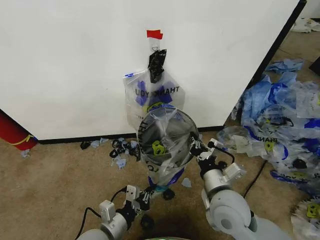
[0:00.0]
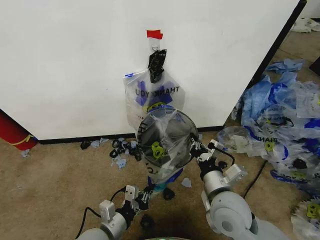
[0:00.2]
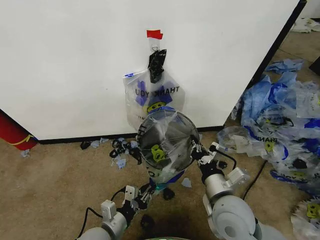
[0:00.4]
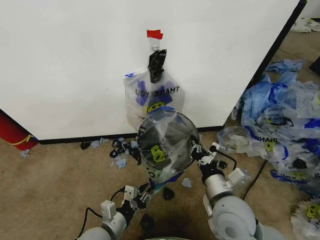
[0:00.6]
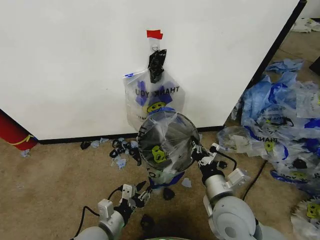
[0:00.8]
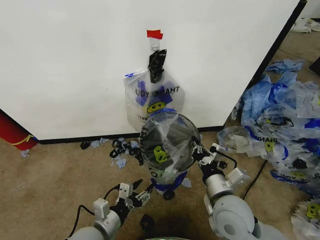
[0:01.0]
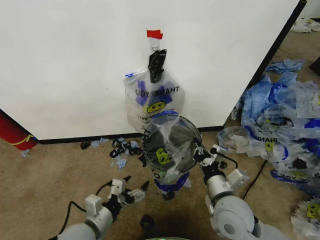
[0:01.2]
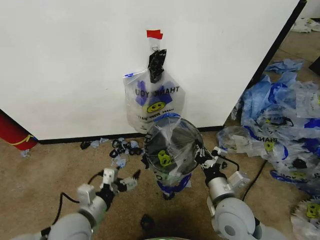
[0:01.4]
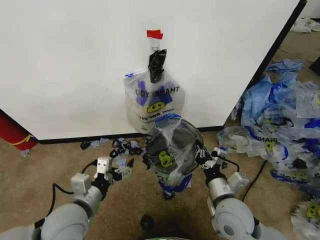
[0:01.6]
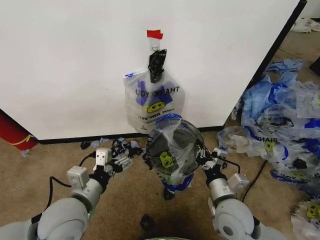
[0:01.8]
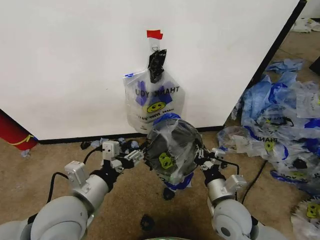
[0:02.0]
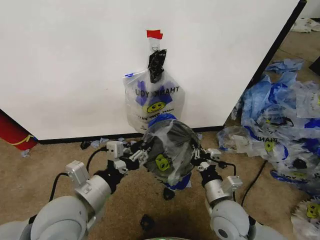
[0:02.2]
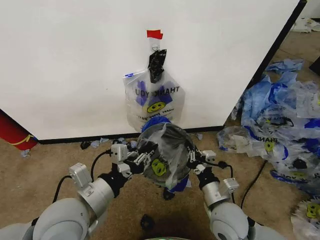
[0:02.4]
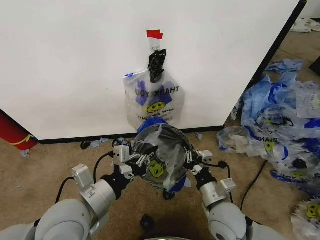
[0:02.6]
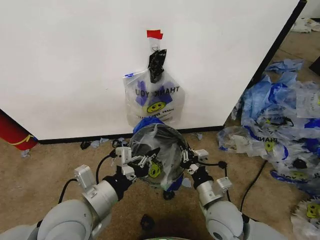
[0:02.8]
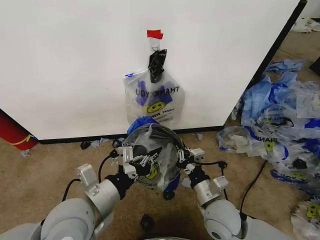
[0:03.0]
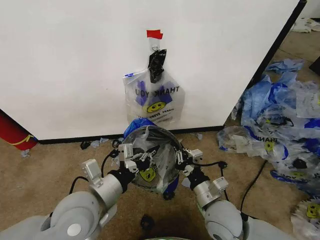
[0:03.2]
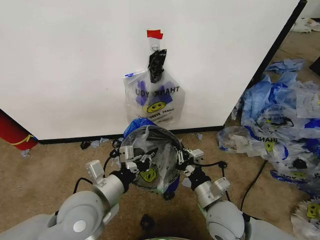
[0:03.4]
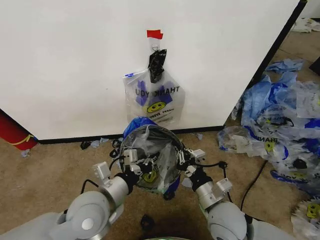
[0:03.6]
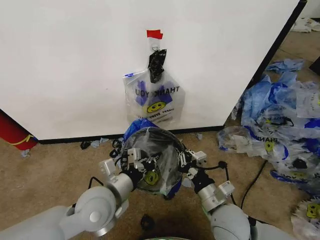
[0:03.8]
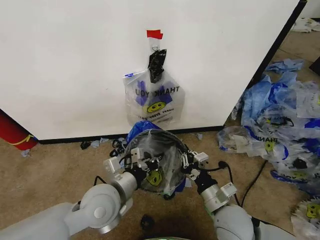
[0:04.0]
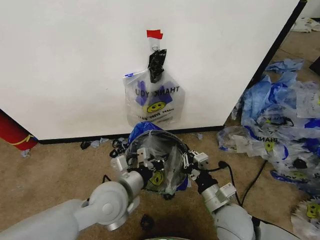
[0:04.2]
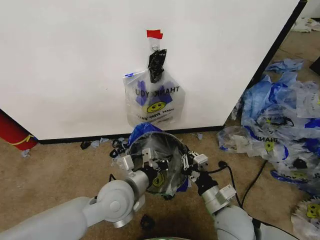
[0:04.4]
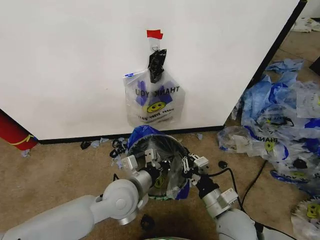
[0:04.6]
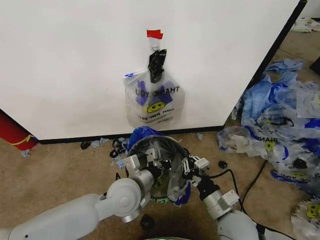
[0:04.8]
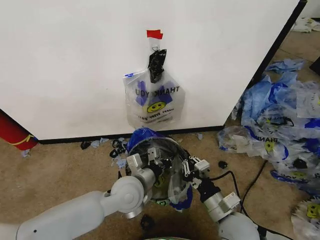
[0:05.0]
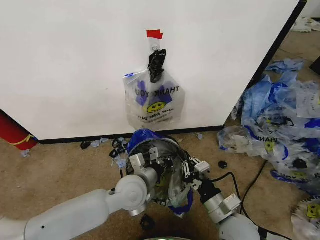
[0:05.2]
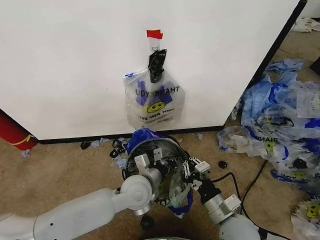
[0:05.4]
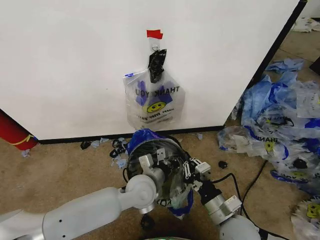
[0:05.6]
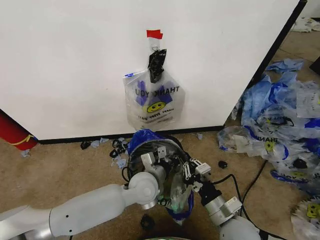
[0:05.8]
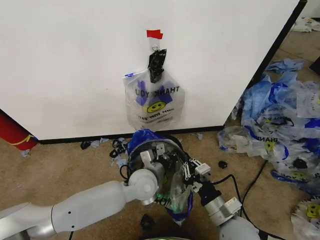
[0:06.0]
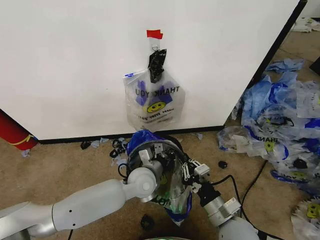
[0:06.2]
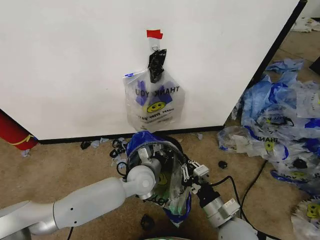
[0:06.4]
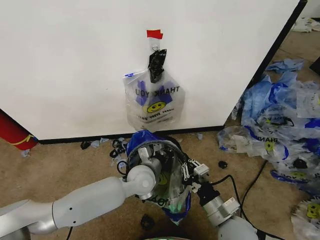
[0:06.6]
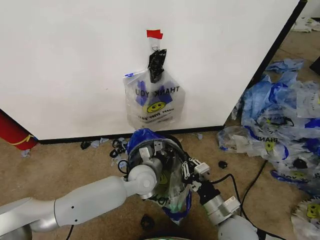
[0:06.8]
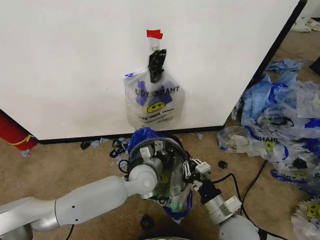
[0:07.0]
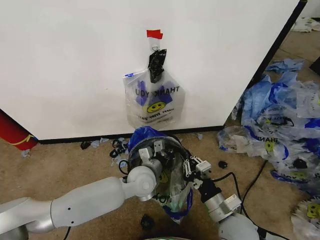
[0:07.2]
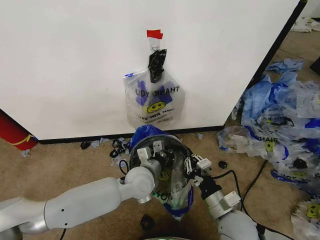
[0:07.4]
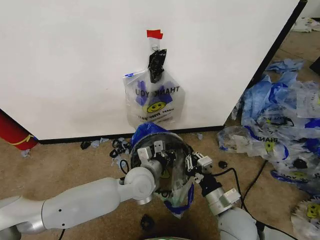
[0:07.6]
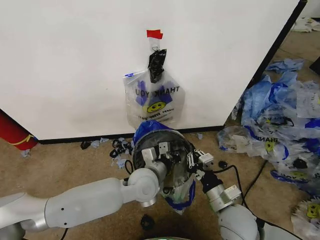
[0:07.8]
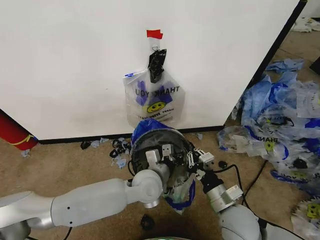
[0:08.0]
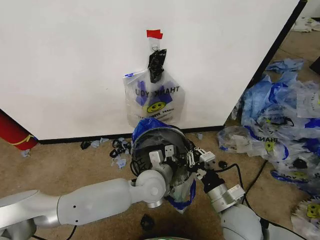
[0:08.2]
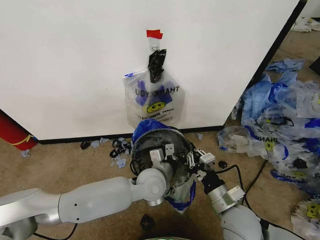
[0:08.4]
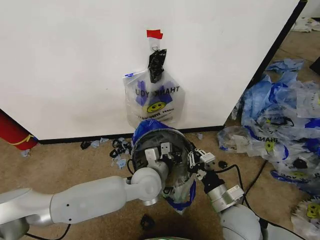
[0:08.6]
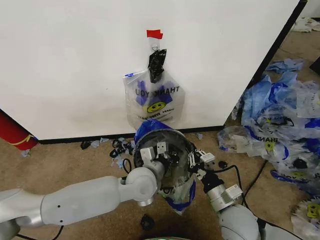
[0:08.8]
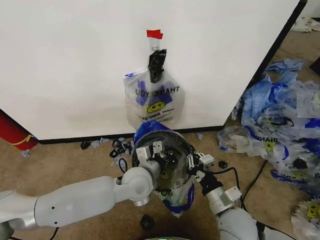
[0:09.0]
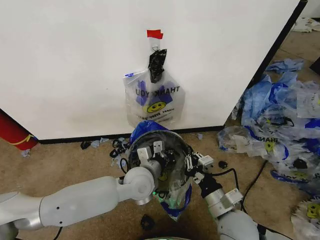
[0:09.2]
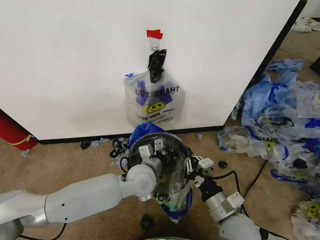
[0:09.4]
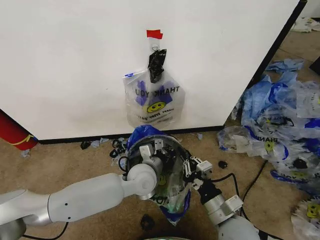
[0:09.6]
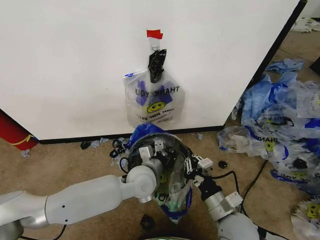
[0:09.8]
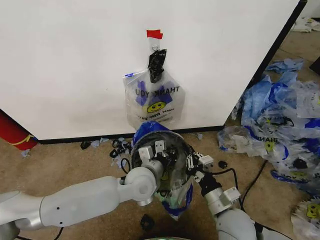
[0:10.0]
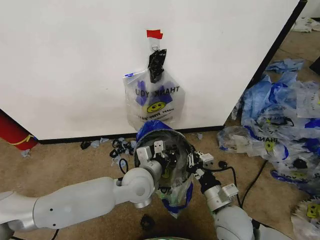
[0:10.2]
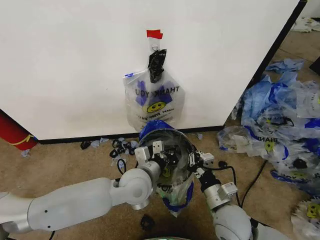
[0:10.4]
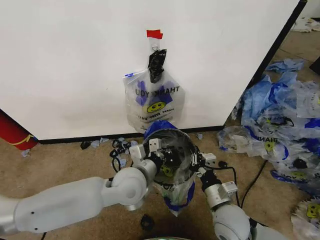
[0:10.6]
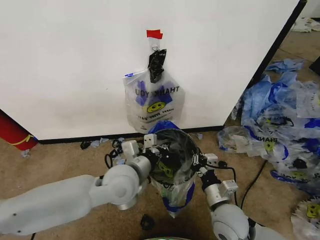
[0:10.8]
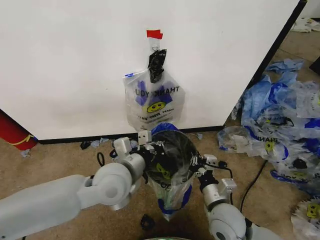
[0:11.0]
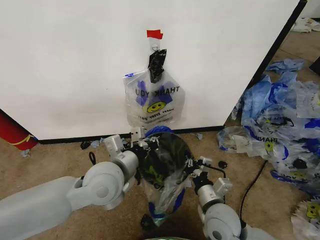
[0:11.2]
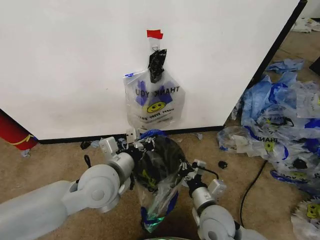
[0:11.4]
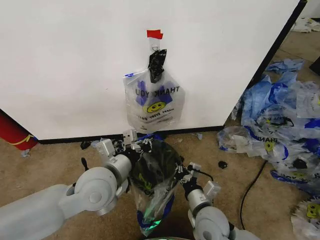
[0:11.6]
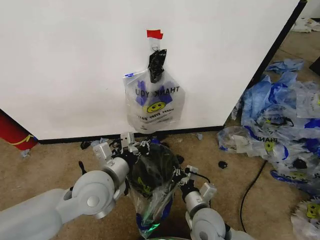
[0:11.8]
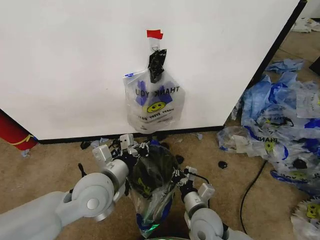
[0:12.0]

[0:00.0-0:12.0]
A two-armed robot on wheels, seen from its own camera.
Task of the whole recording: Pick up the garbage bag from the wall and place it over the trash bin.
0:00.0 to 0:01.6: The left gripper travels upward by some 10 cm, and opens.
0:01.6 to 0:03.0: The left gripper shifts roughly 5 cm upward, and closes up.
0:03.0 to 0:04.4: The left gripper moves to the right, forward and downward, roughly 10 cm.
0:04.4 to 0:06.0: The left gripper moves forward, downward and to the right, some 10 cm.
0:06.0 to 0:09.0: The grippers make only small movements.
0:09.0 to 0:10.4: There are only small adjustments of the grippers.
0:10.4 to 0:12.0: The left gripper goes roughly 10 cm to the left and upward. The right gripper shifts some 5 cm to the left.

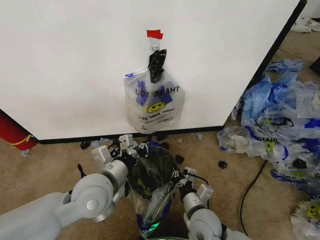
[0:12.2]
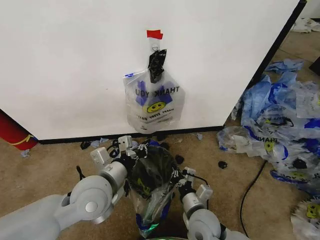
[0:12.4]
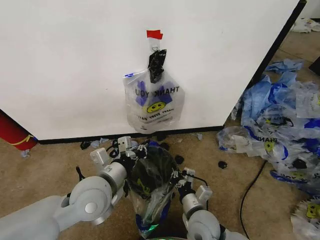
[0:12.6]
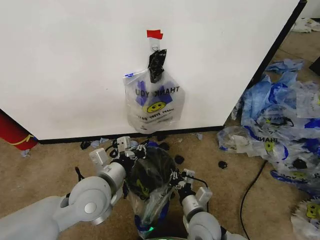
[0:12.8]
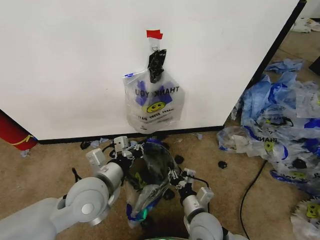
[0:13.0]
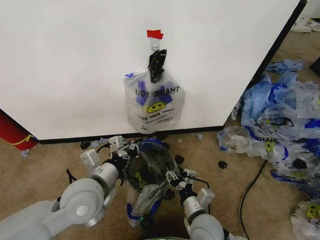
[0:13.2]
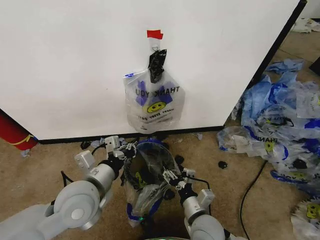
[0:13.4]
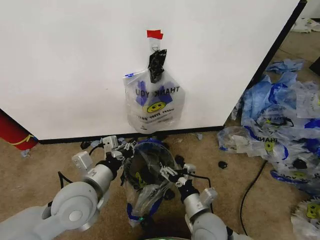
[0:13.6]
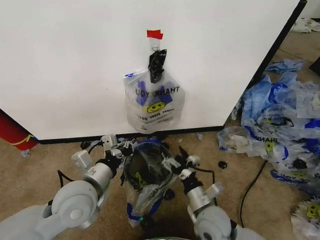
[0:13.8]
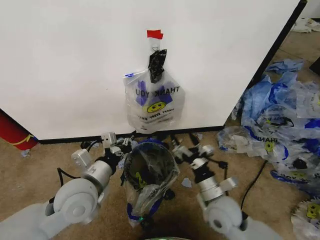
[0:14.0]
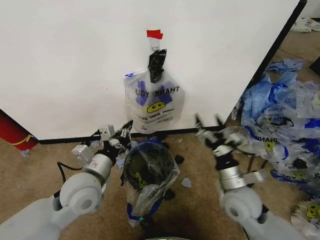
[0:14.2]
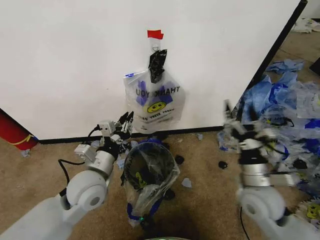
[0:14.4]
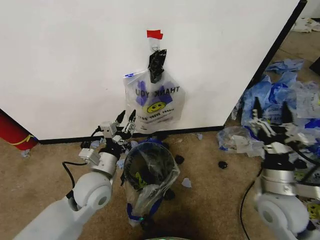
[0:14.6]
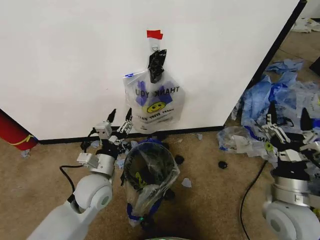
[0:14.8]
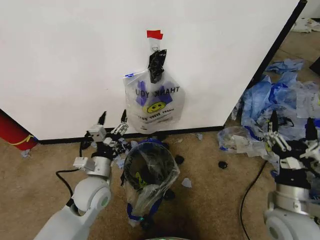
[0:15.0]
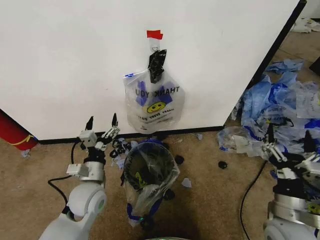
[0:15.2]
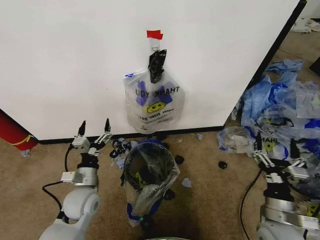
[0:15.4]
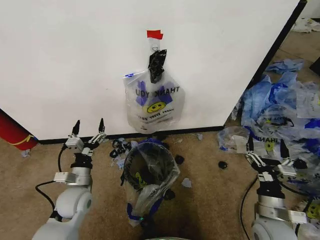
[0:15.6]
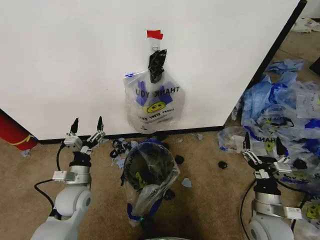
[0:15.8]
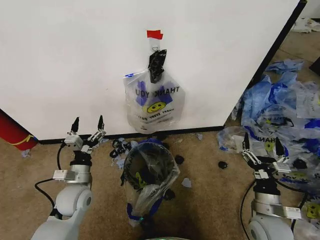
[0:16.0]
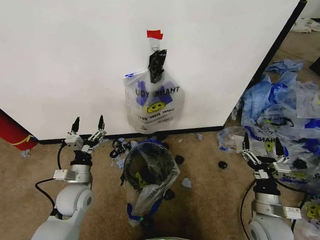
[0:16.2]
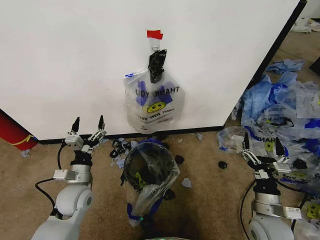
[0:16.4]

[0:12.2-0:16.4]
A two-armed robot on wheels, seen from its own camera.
Task of the whole recording: Pick up the garbage bag from the wall and place it over the trash bin.
0:12.2 to 0:13.6: The right gripper opens its fingers.
0:13.6 to 0:15.0: The left gripper heads downward and forward, covering some 10 cm, and opens. The right gripper shifts approximately 20 cm to the right and upward.
0:15.0 to 0:16.4: The left gripper heads to the left, covering roughly 5 cm, while the right gripper shifts roughly 10 cm downward.

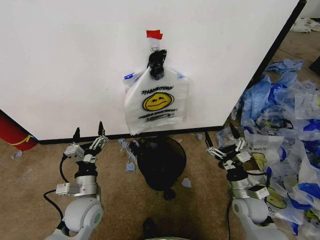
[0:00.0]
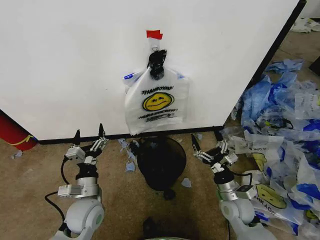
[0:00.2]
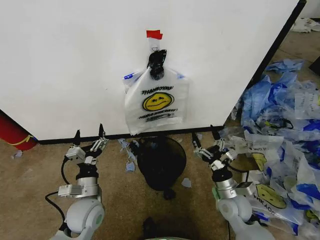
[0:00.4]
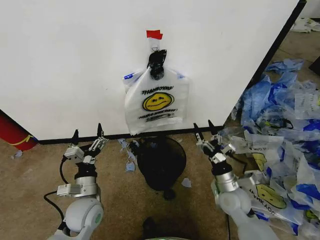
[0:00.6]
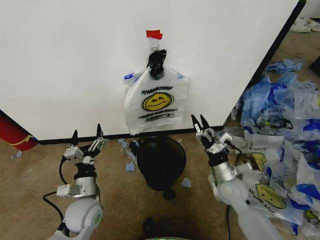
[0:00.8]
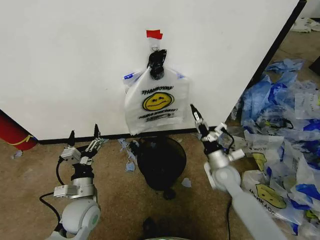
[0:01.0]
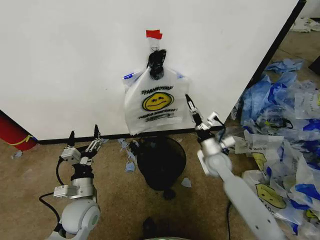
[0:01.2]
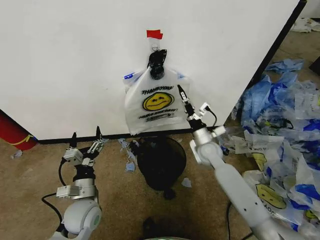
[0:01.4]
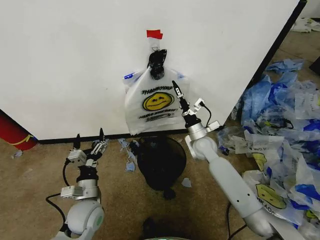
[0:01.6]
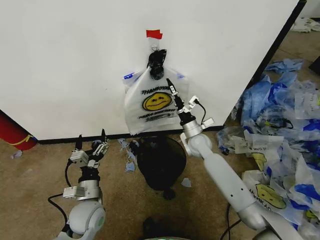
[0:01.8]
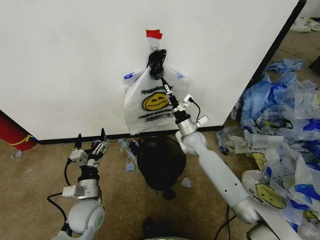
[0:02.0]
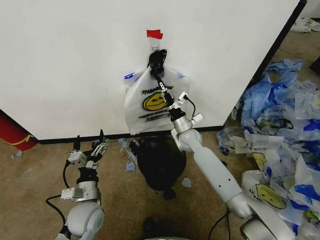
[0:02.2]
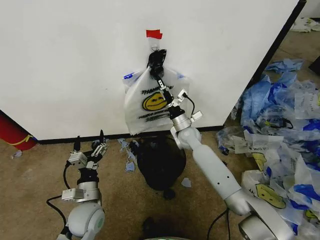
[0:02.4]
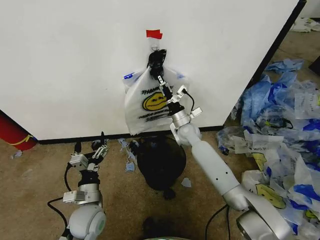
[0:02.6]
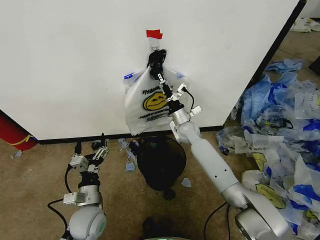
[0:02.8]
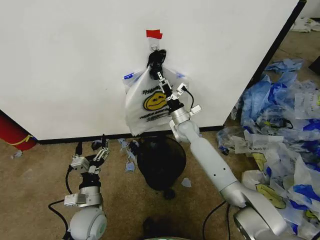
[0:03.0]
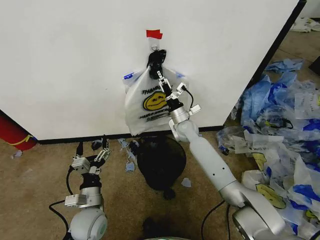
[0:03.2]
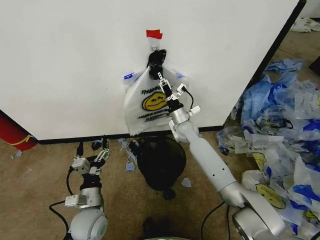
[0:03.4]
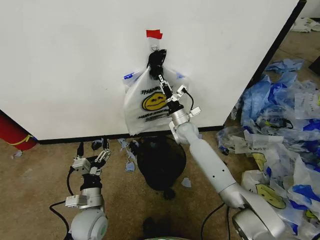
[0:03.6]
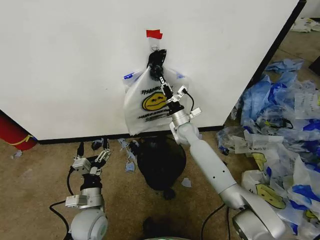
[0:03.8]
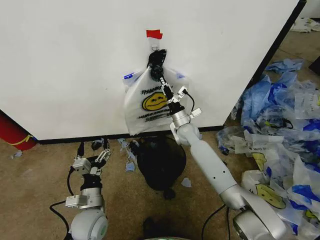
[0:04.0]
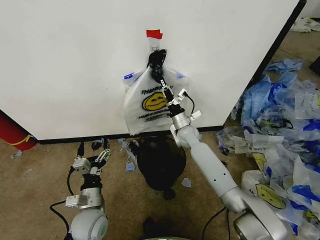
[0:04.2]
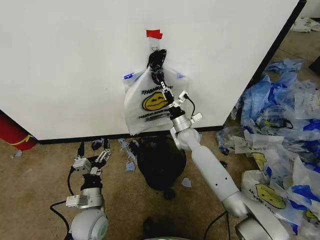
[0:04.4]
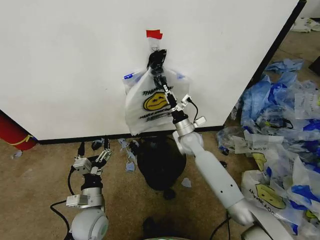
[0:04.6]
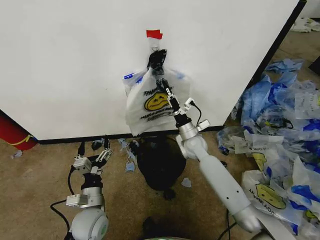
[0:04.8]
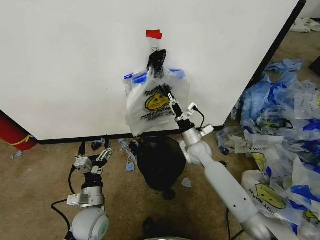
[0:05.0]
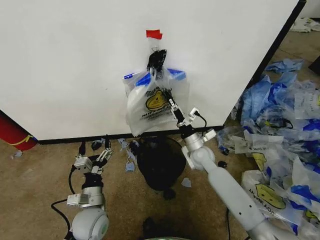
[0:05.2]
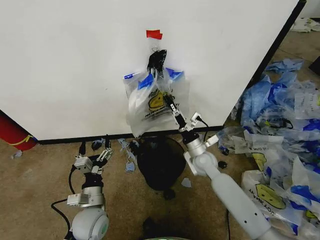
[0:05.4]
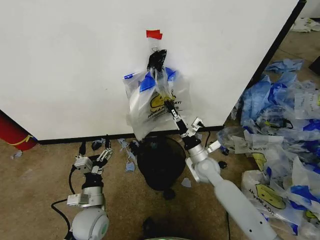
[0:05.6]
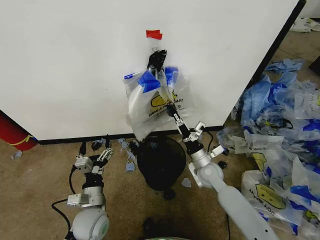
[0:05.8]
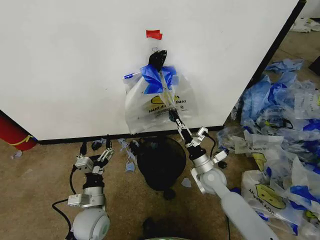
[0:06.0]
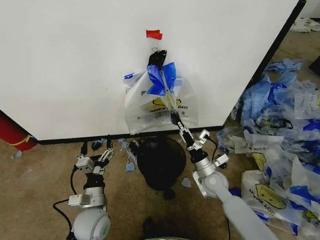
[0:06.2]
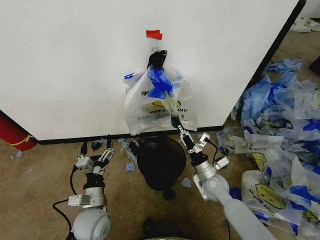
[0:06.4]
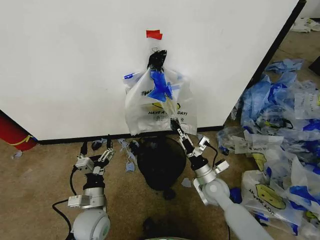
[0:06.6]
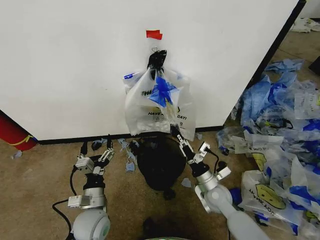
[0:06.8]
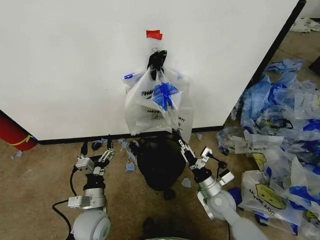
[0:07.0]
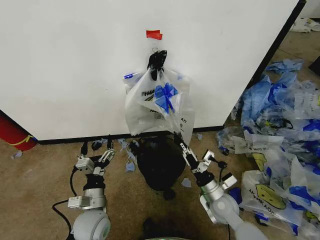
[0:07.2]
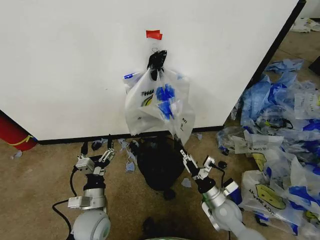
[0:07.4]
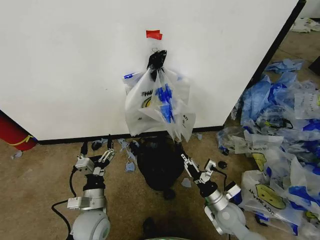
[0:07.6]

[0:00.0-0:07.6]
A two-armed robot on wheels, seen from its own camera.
Task of the whole recording: Pick up the garbage bag from the wall and place it over the trash bin.
0:01.6 to 0:03.0: The right gripper travels forward and to the left by about 10 cm.
0:03.0 to 0:04.6: The right gripper closes up.
0:04.6 to 0:06.0: The right gripper is displaced backward and to the right by some 15 cm.
0:06.0 to 0:07.6: The right gripper is displaced backward by about 10 cm.
